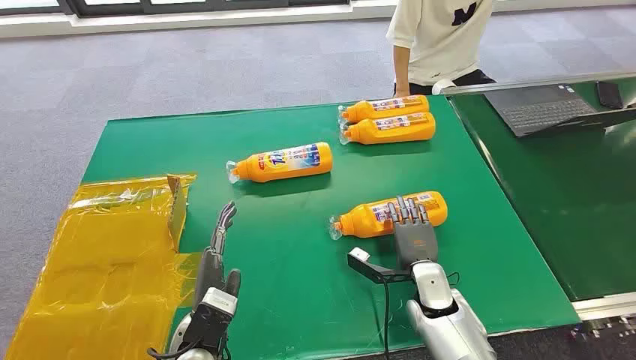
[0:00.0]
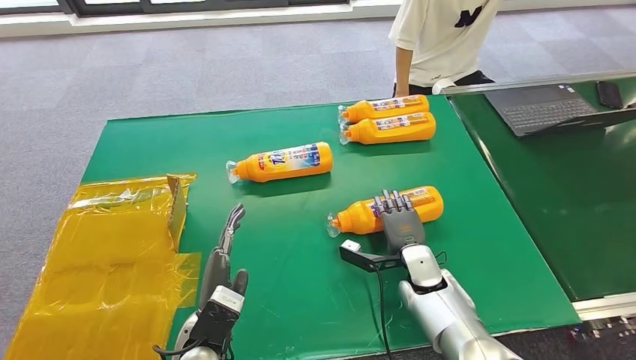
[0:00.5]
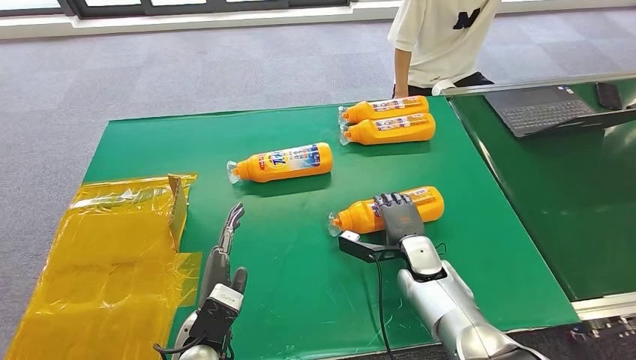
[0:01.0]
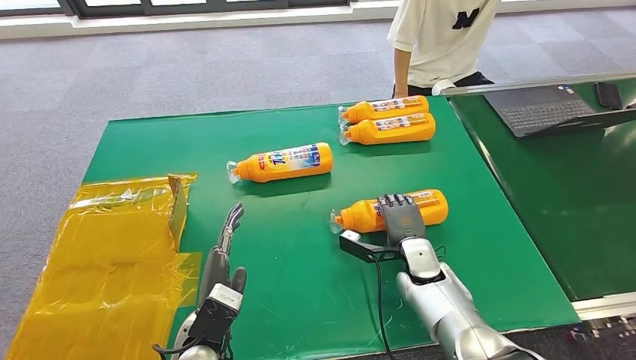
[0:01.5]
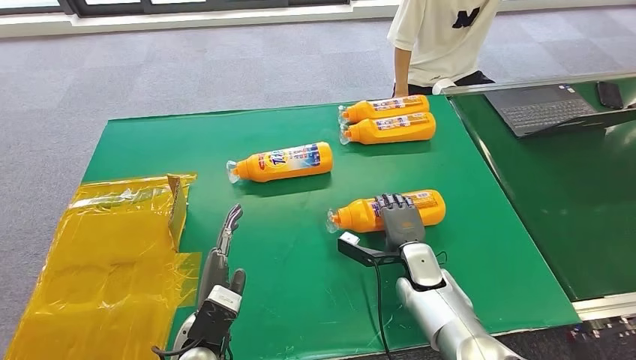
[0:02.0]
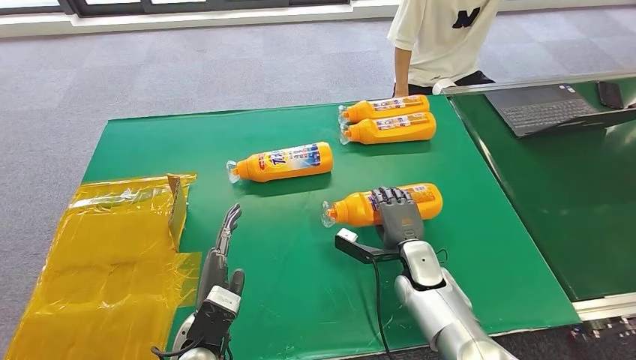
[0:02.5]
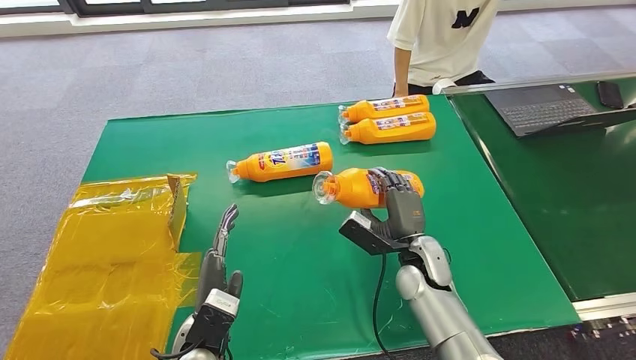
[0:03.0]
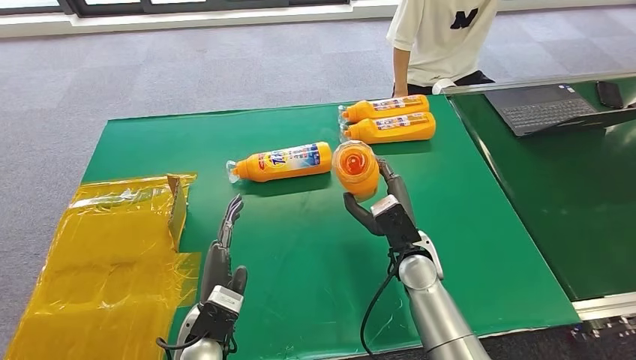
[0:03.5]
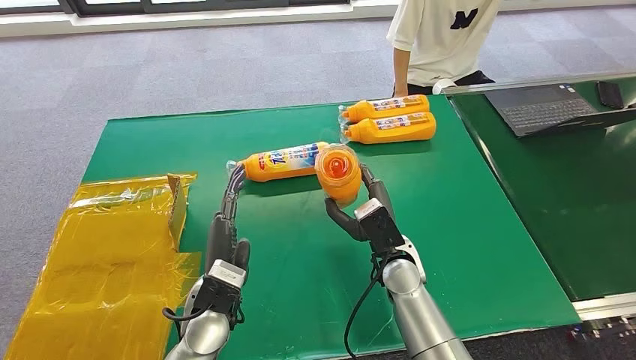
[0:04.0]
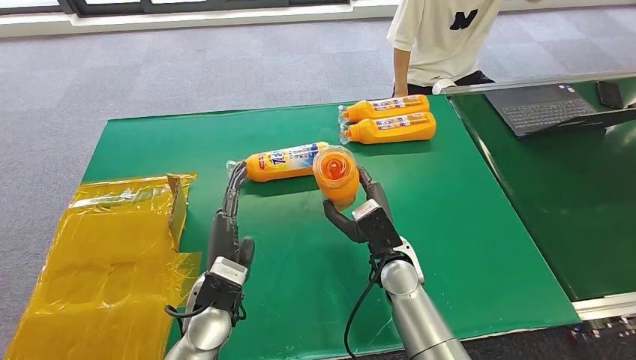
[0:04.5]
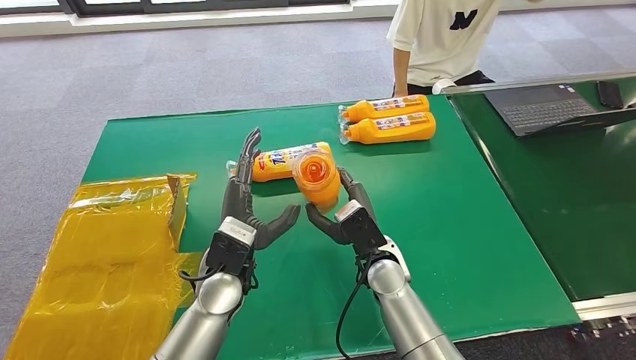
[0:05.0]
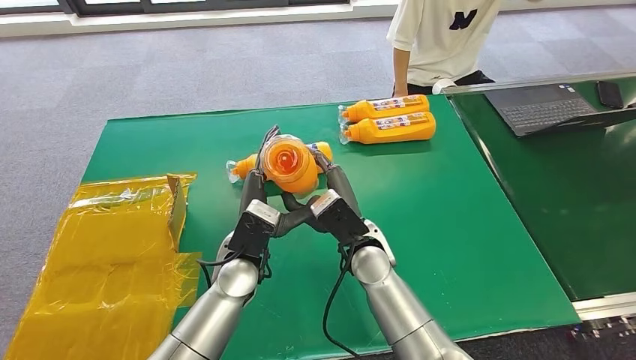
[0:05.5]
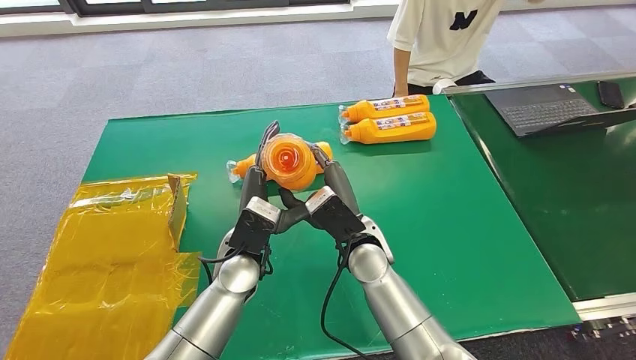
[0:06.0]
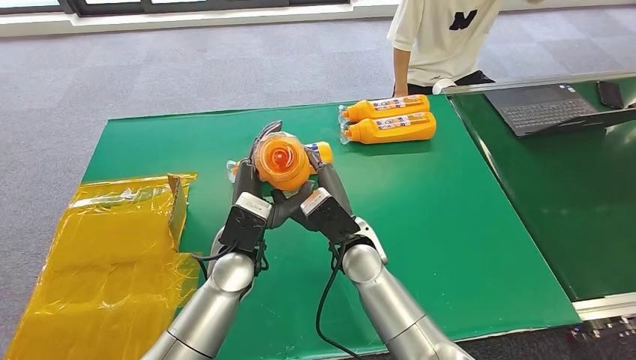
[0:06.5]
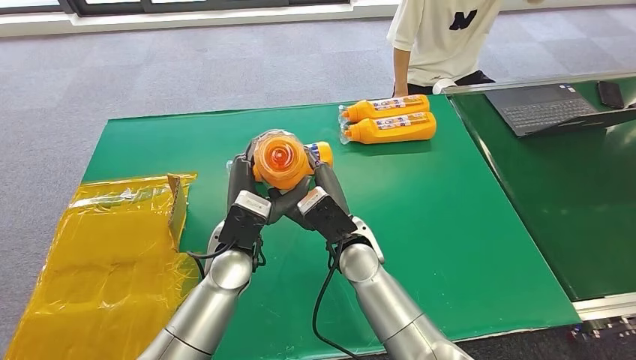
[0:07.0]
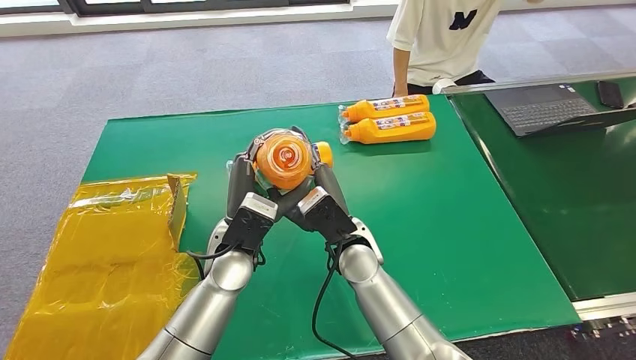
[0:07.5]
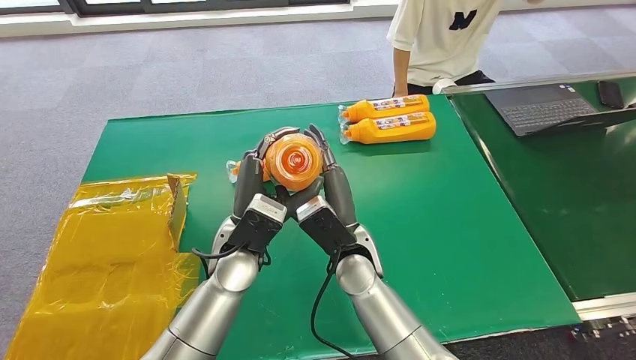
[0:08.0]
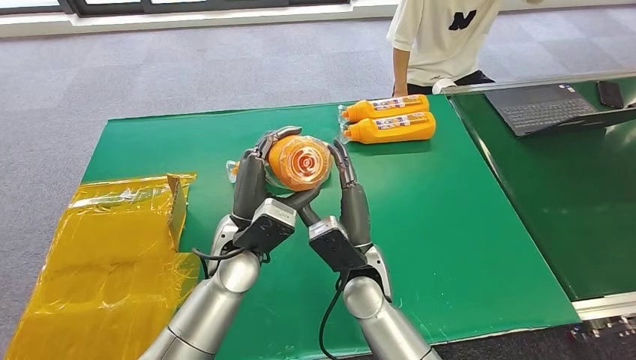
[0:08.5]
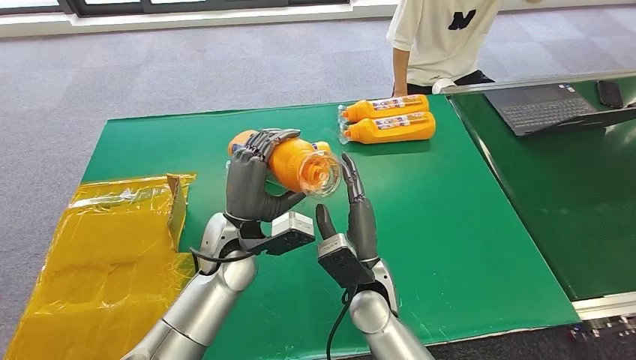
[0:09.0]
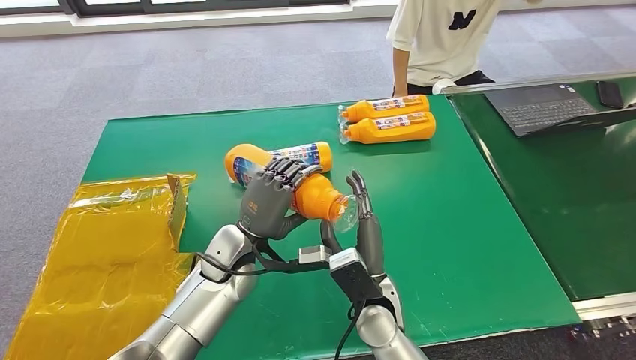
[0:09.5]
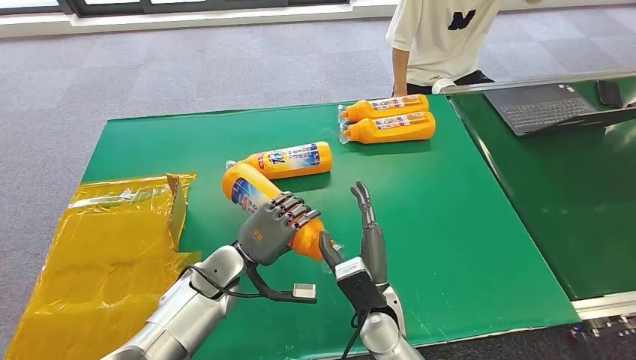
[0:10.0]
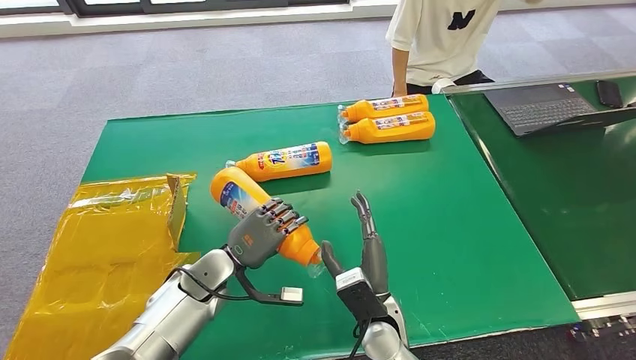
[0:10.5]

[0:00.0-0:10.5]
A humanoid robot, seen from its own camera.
Step, 0:00.0 to 0:02.5: Pick up the bottle from the table.
Step, 0:03.0 to 0:10.0: Turn the bottle to the front side.
0:02.0 to 0:04.0: The right hand is displaced upward and to the left by approximately 10 cm; the left hand heads forward, covering approximately 5 cm.
0:04.0 to 0:06.5: The left hand goes some 5 cm forward, while the right hand shifts roughly 5 cm to the left.
0:08.5 to 0:10.5: The right hand is displaced downward and backward by approximately 10 cm, while the left hand goes roughly 15 cm downward and to the left.

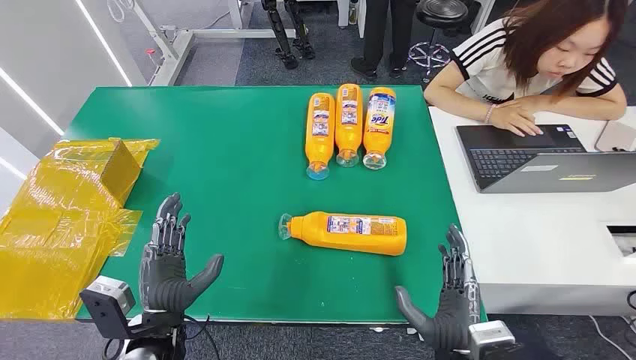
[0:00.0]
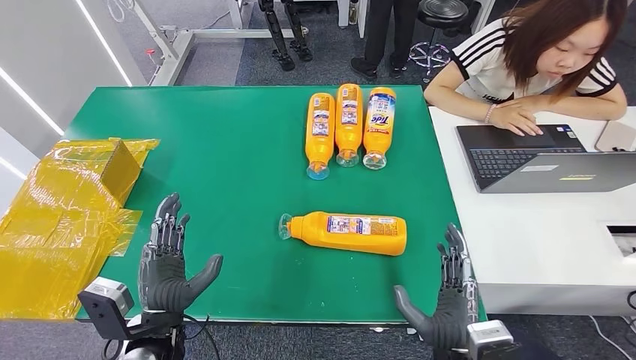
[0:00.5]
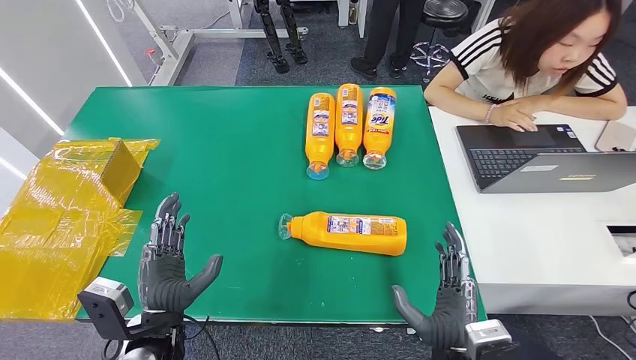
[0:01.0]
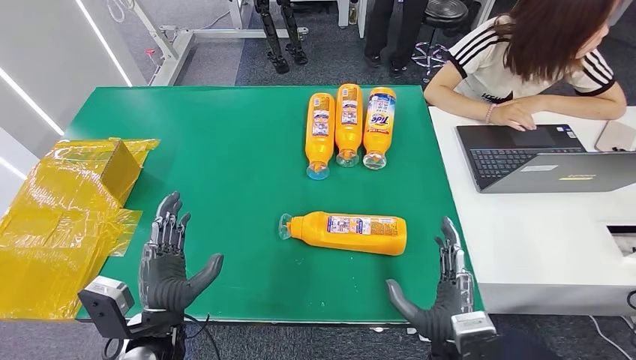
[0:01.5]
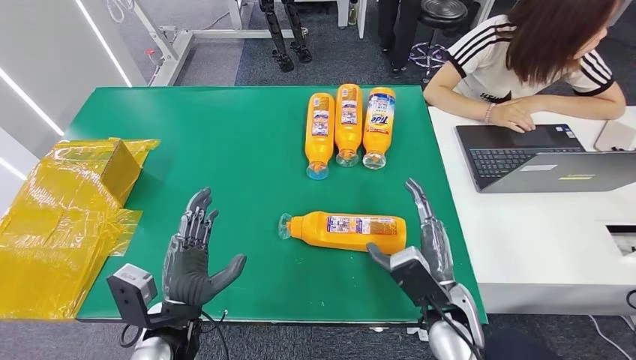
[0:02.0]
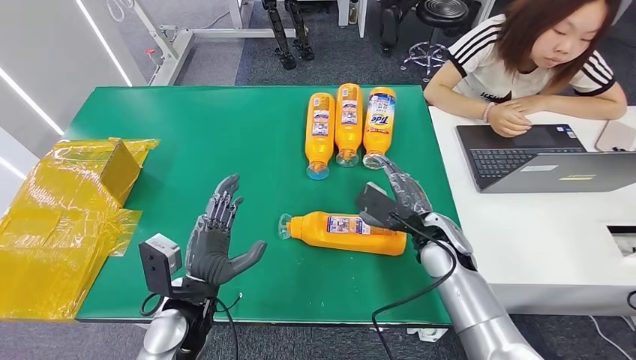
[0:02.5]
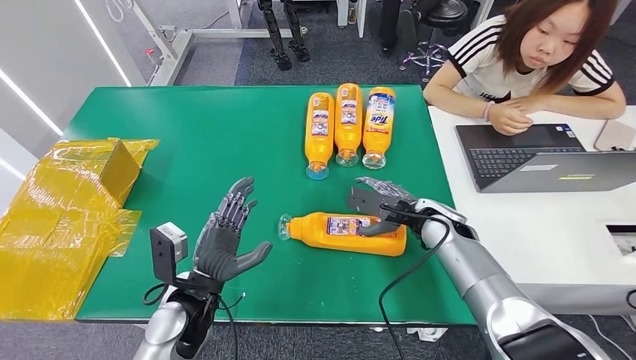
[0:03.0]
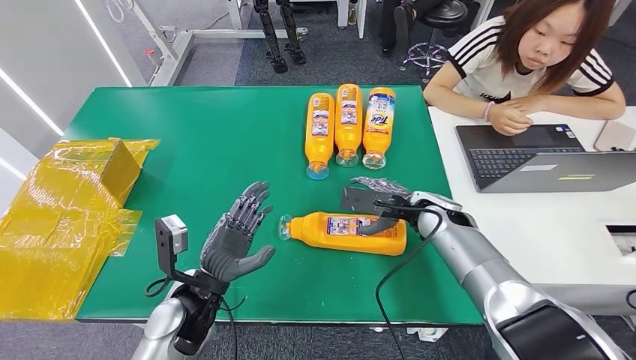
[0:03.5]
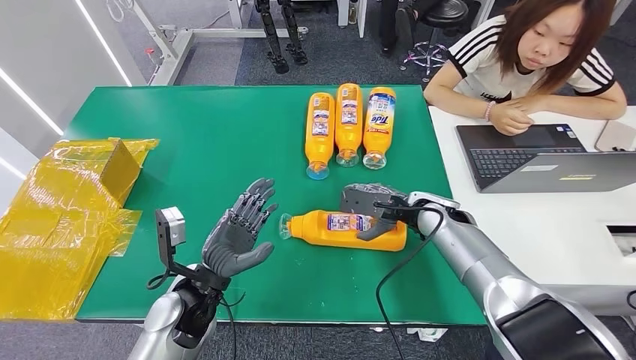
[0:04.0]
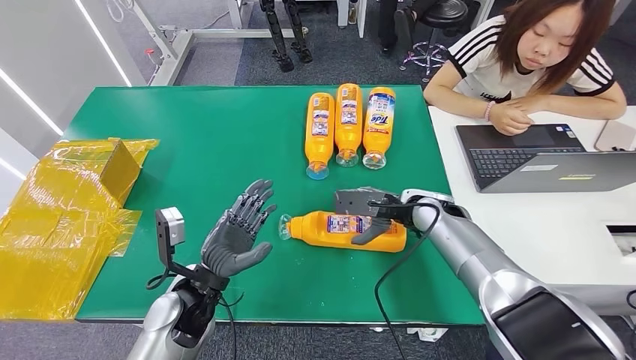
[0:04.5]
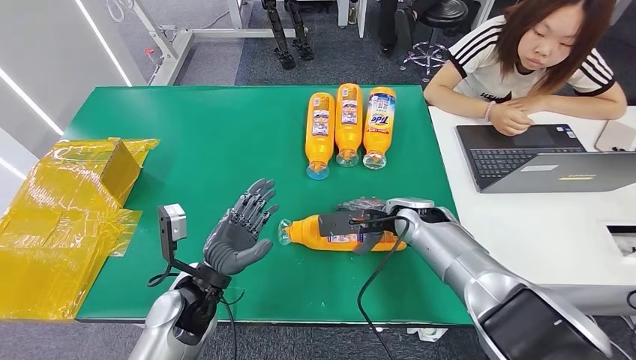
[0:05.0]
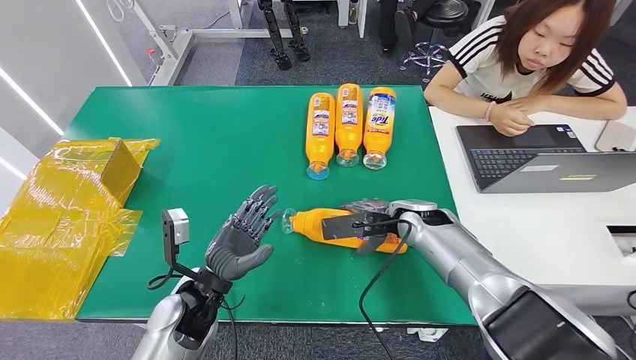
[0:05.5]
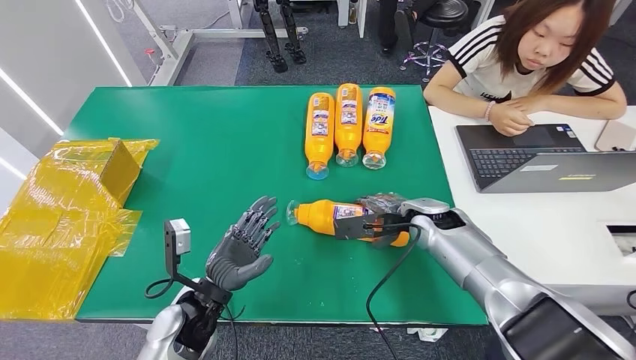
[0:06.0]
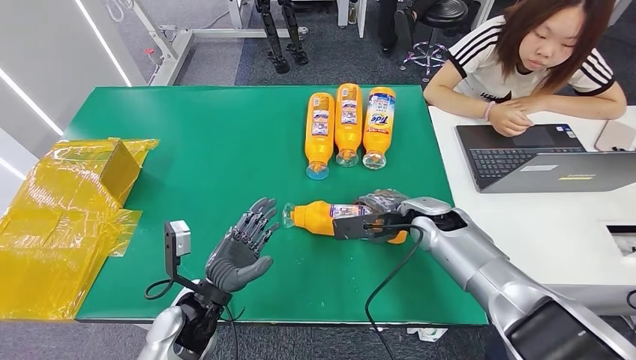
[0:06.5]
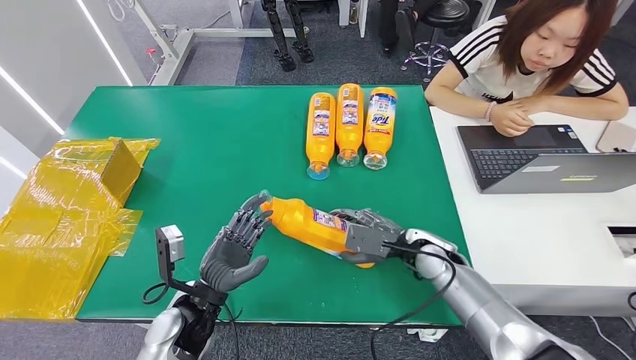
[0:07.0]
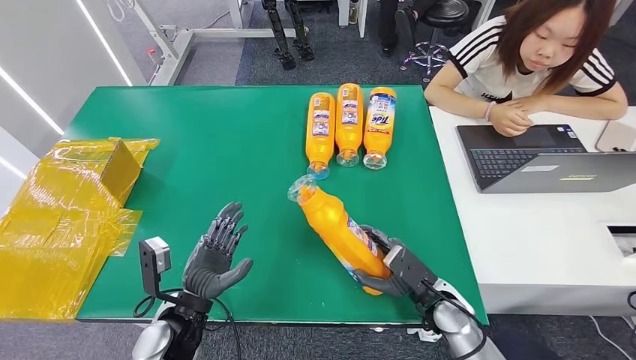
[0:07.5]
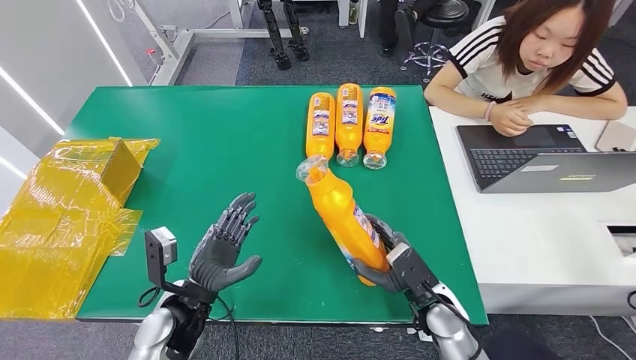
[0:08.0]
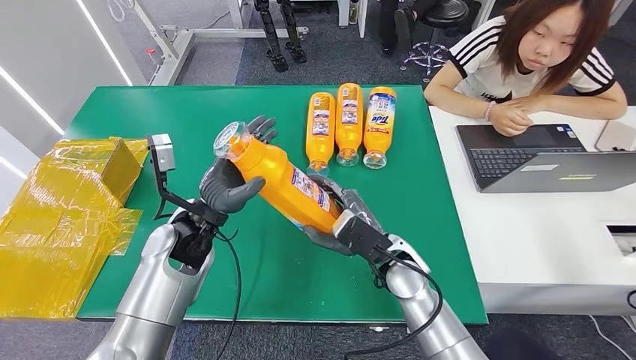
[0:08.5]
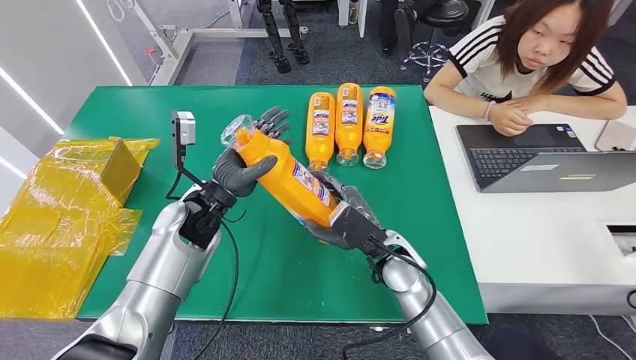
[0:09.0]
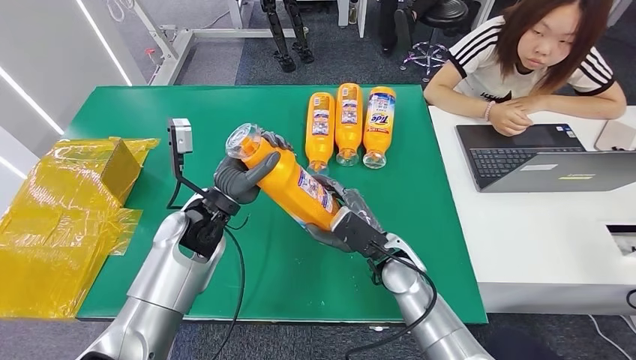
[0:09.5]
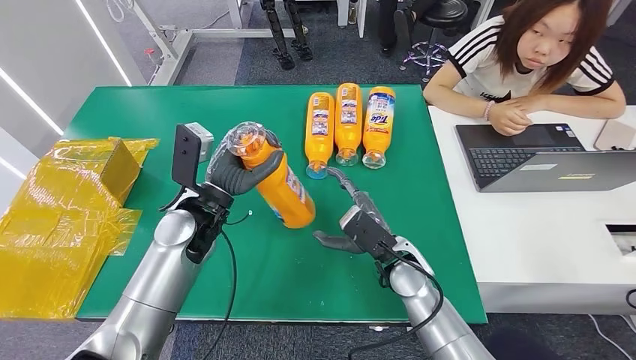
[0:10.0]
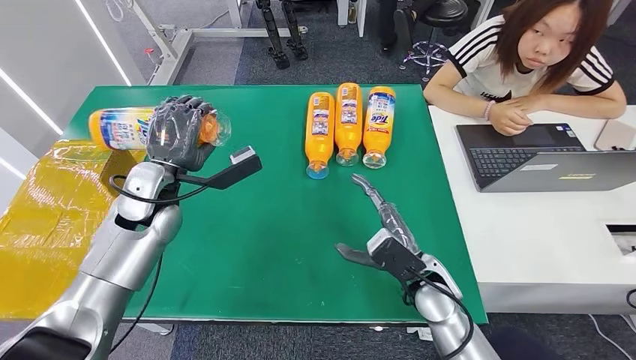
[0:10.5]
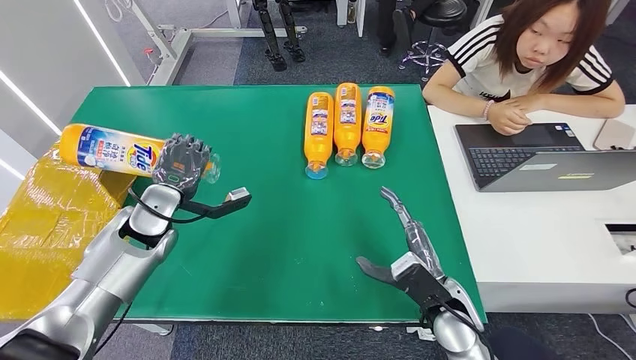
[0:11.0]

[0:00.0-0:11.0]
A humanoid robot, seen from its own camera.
Step, 0:00.0 to 0:08.5: Pick up the bottle from the table.
0:02.0 to 0:03.5: The left hand ends up some 5 cm from where it was, while the right hand is displaced forward by some 20 cm.
0:03.5 to 0:05.5: The hands move only a little.
0:05.5 to 0:07.5: The right hand moves backward and downward, some 15 cm; the left hand changes place by approximately 5 cm.
0:07.5 to 0:09.0: The right hand travels to the left, upward and forward by about 15 cm. Meanwhile the left hand shifts roughly 20 cm forward and upward.
